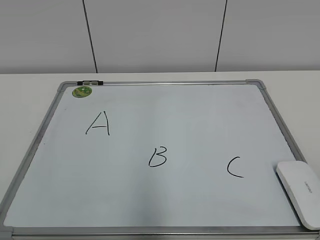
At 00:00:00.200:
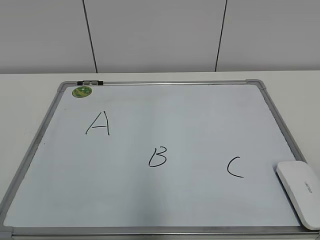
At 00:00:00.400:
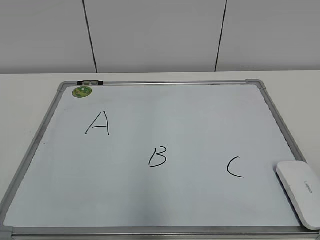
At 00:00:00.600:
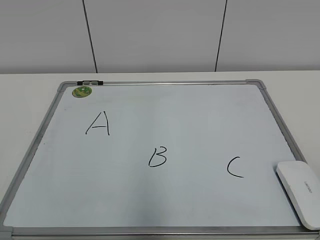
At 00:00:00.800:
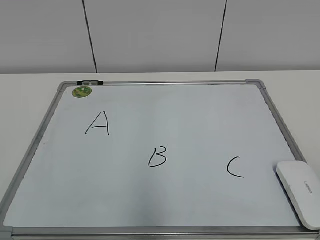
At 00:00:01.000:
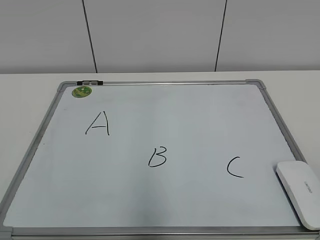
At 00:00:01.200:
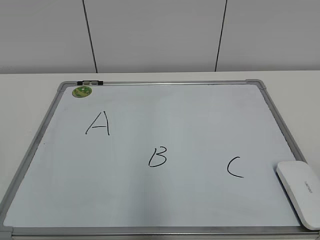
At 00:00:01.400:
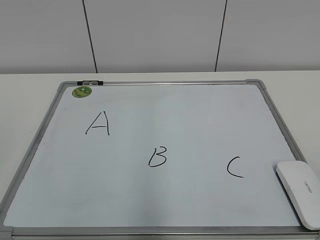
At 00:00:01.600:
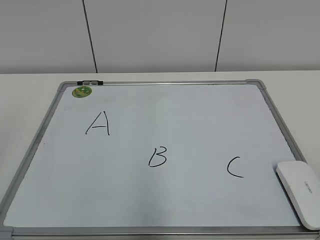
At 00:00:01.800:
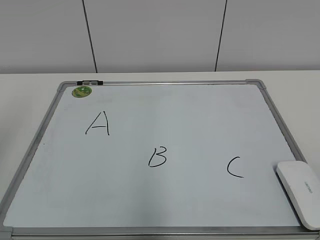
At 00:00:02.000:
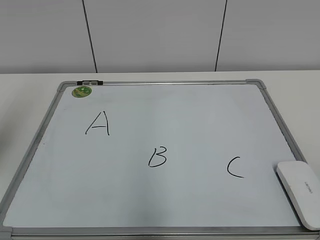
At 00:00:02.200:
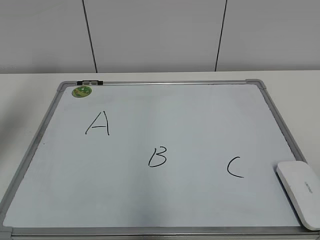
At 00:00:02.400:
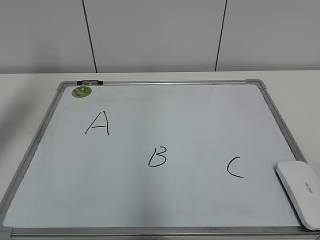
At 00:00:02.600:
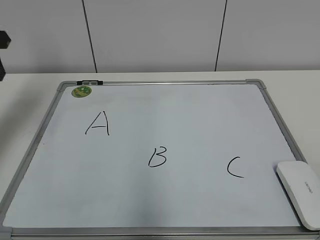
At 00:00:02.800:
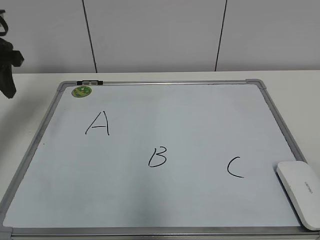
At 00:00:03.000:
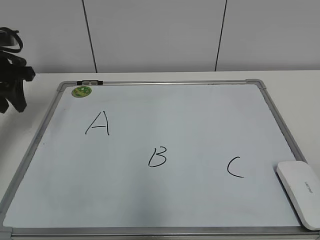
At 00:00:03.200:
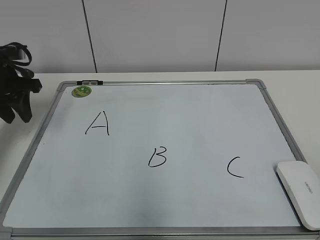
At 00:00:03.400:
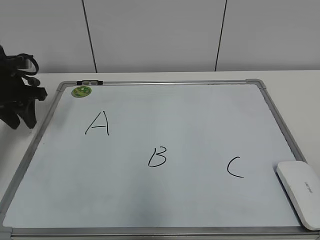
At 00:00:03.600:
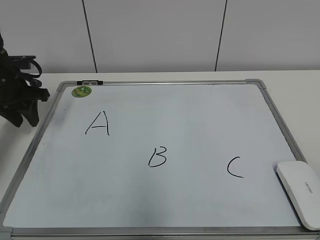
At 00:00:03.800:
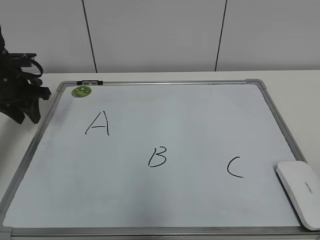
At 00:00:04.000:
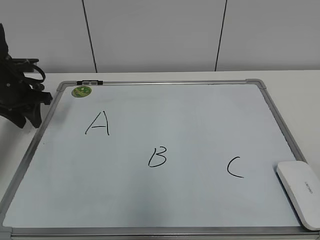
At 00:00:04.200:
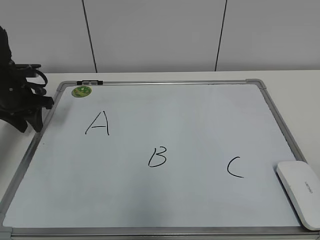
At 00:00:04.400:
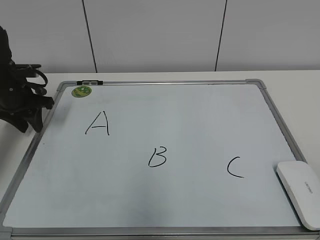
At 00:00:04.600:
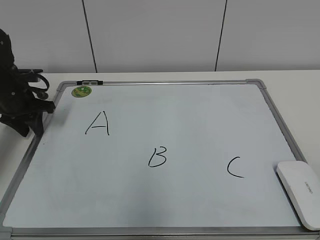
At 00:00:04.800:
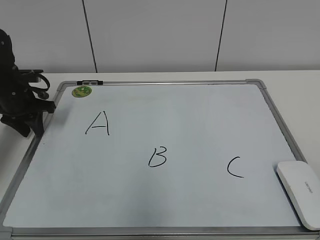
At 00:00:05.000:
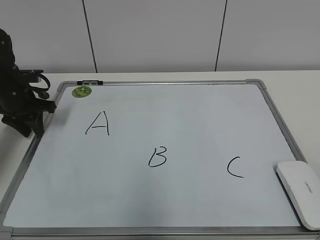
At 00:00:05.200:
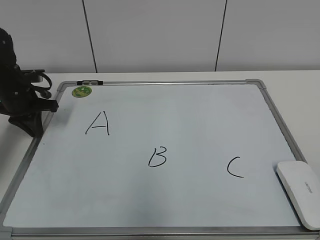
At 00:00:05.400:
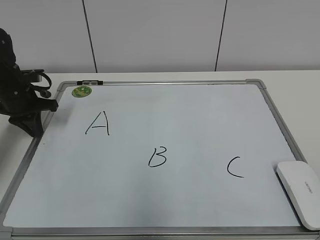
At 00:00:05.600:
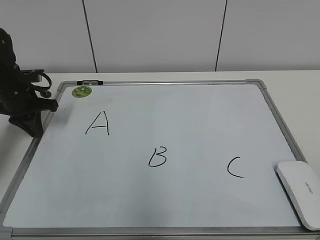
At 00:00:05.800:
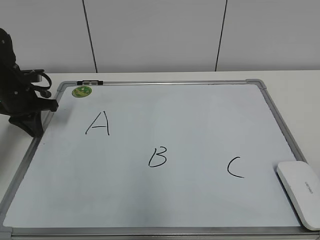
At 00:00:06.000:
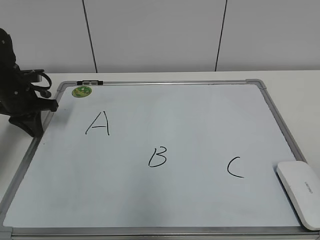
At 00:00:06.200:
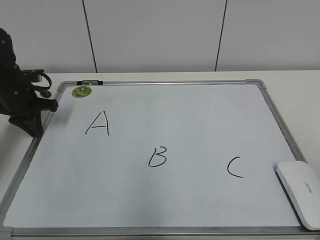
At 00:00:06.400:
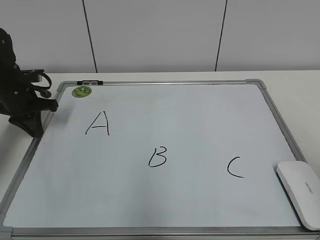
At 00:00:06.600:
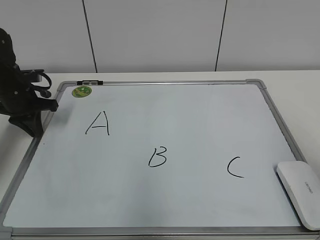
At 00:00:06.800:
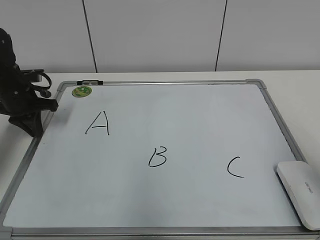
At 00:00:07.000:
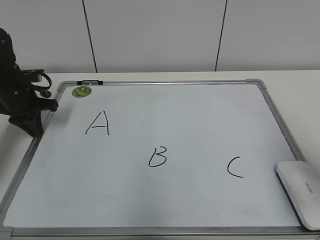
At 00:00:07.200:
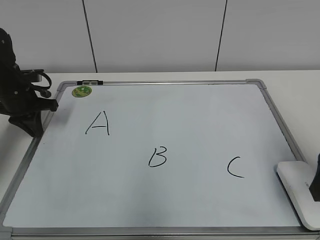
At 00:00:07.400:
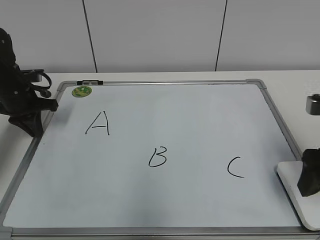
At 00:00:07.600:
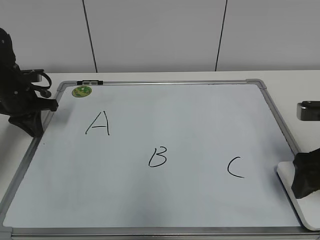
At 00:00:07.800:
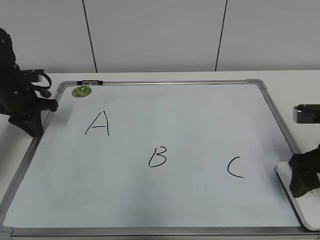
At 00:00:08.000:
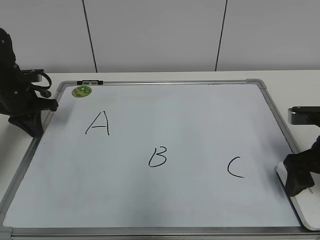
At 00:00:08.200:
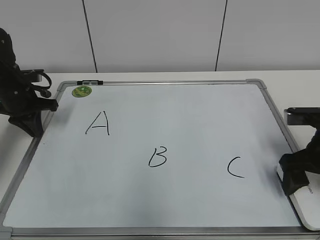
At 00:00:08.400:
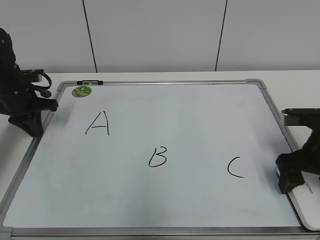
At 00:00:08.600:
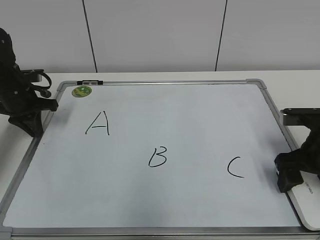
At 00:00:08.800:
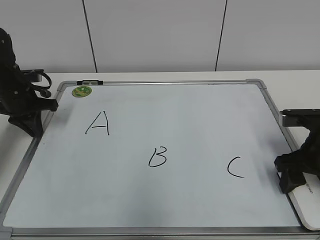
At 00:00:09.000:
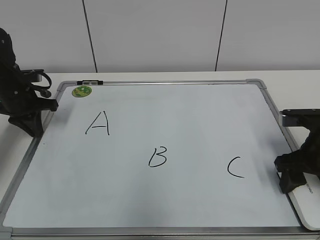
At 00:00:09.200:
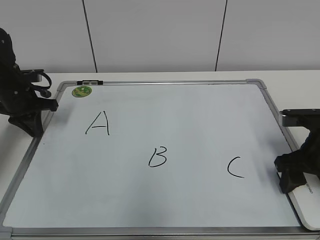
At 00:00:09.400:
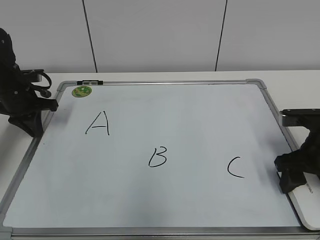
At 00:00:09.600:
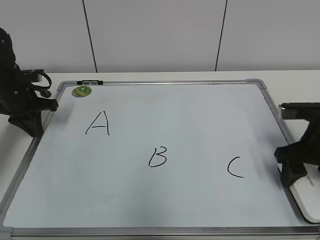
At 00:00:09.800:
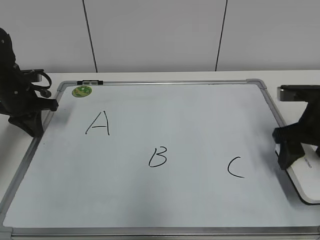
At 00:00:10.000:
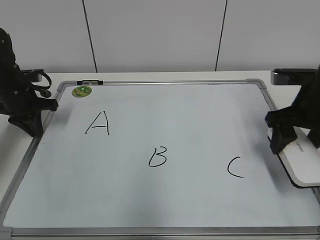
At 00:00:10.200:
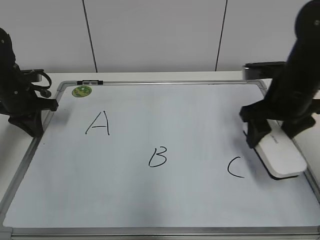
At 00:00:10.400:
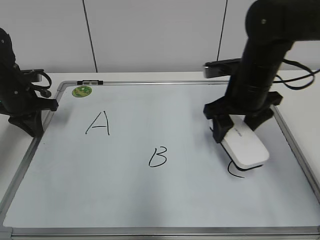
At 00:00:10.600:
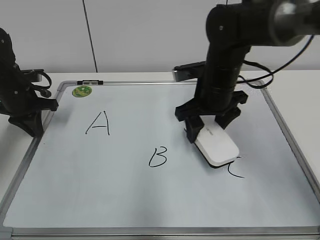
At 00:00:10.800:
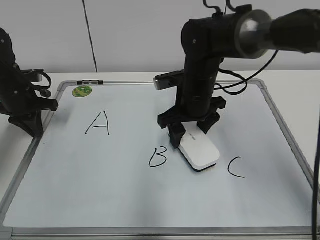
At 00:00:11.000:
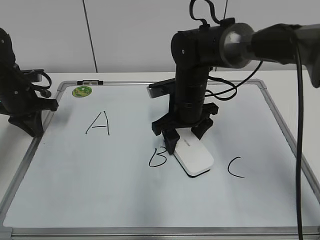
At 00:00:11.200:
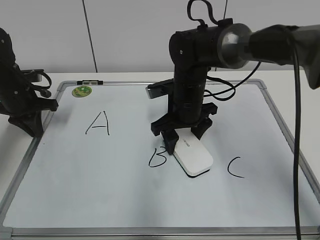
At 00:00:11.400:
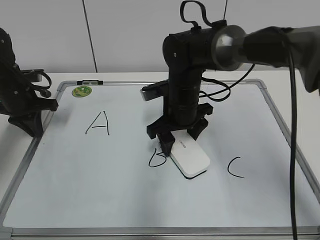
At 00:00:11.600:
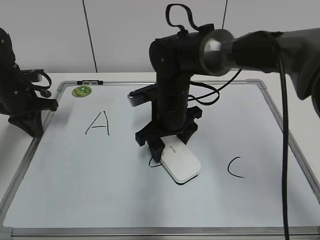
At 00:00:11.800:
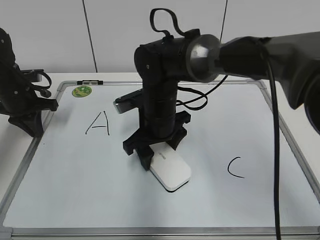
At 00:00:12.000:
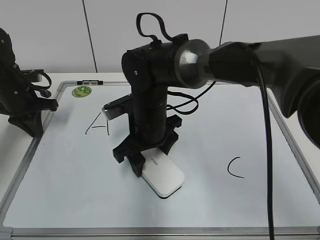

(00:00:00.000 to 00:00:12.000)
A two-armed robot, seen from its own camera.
Task of the whole recording: pick up the eraser on the blackboard and erase the letter "B".
Step, 00:00:00.000 - 00:00:05.000: Hold the drawing board steady with your left hand.
Step, 00:00:05.400 - 00:00:09.400: Grab the eraser with your right hand.
00:00:01.600 - 00:00:03.000: The left gripper is displaced forward by roughly 30 cm.
00:00:03.000 - 00:00:04.400: The left gripper moves downward, about 10 cm.
00:00:04.400 - 00:00:06.000: The left gripper closes up.
00:00:06.000 - 00:00:07.600: The right gripper moves forward, roughly 25 cm, and opens.
00:00:07.600 - 00:00:09.000: The right gripper is displaced downward by roughly 5 cm, and closes up.
00:00:09.000 - 00:00:10.400: The right gripper goes roughly 15 cm to the left, forward and upward.
00:00:10.400 - 00:00:12.000: The right gripper travels to the left by approximately 15 cm.

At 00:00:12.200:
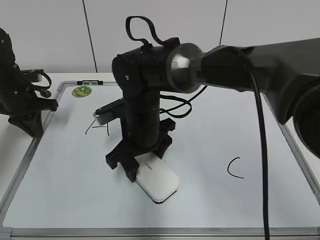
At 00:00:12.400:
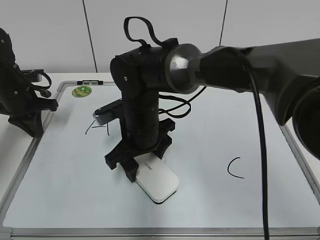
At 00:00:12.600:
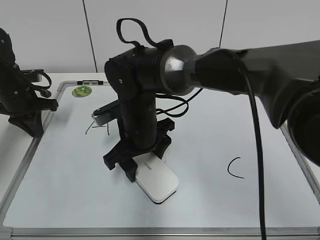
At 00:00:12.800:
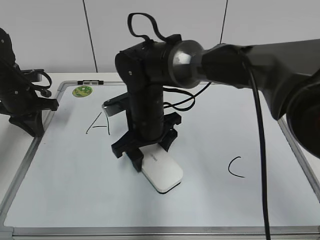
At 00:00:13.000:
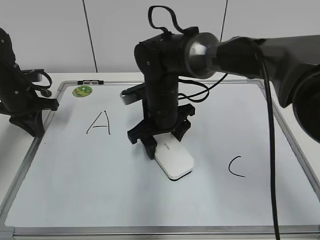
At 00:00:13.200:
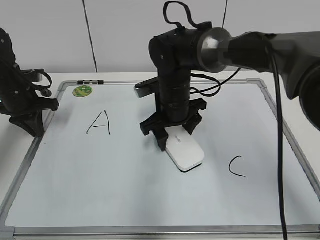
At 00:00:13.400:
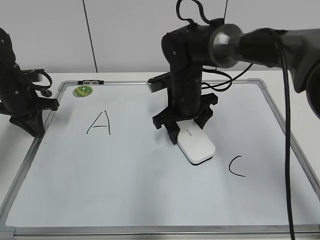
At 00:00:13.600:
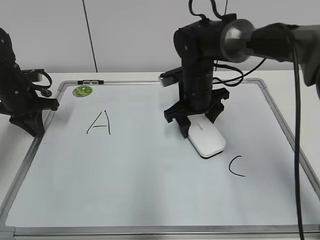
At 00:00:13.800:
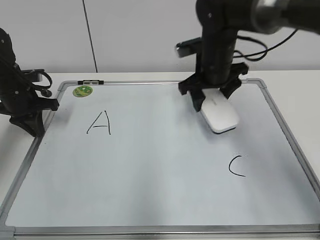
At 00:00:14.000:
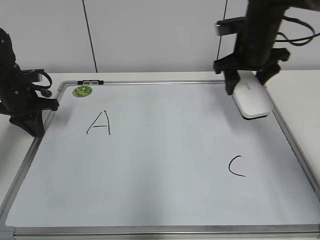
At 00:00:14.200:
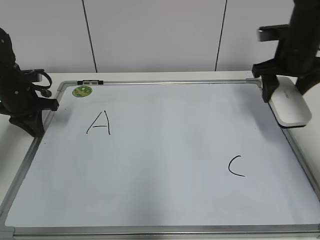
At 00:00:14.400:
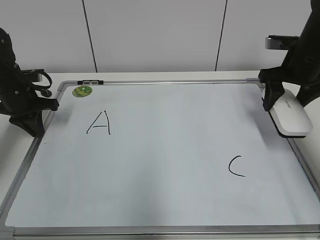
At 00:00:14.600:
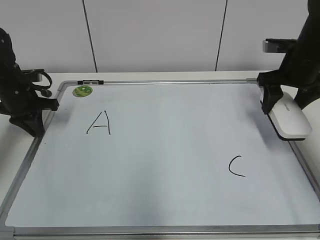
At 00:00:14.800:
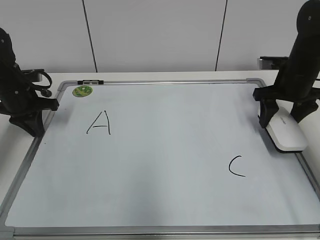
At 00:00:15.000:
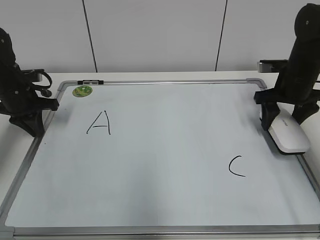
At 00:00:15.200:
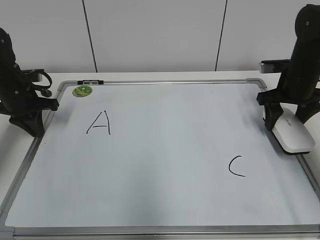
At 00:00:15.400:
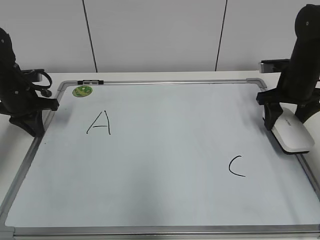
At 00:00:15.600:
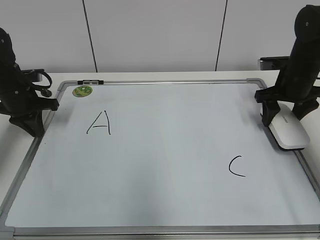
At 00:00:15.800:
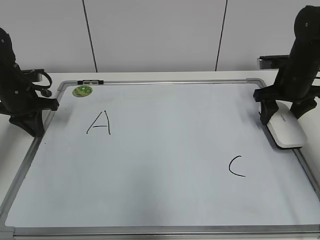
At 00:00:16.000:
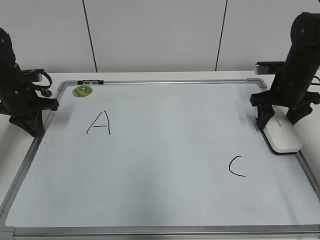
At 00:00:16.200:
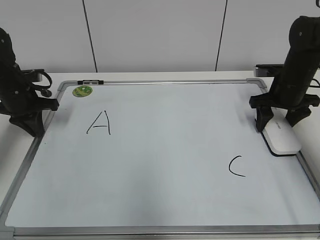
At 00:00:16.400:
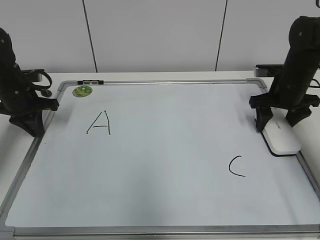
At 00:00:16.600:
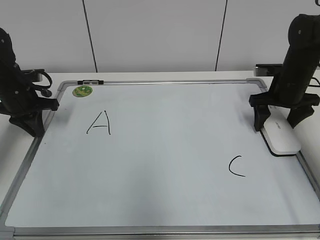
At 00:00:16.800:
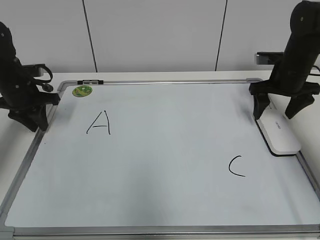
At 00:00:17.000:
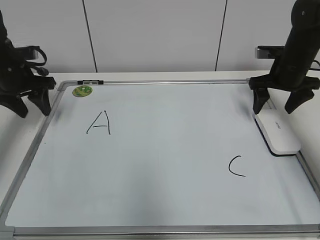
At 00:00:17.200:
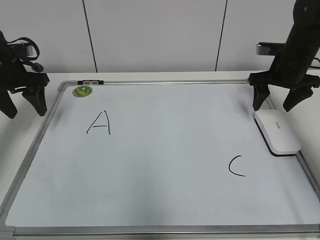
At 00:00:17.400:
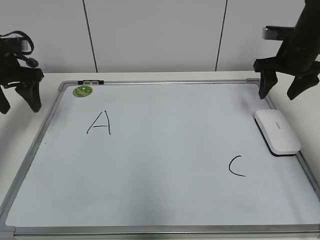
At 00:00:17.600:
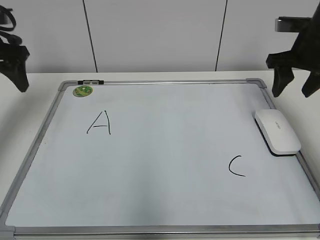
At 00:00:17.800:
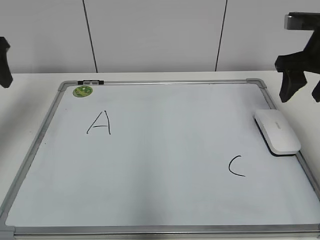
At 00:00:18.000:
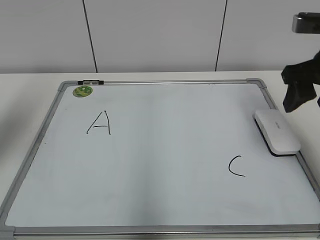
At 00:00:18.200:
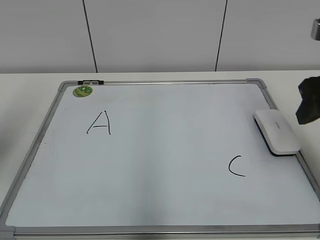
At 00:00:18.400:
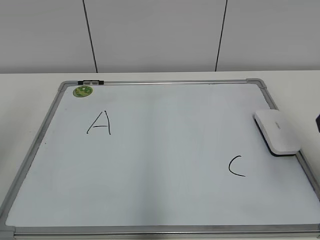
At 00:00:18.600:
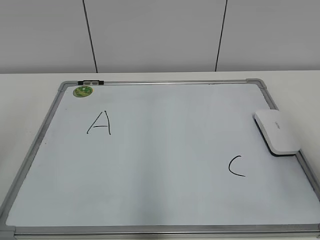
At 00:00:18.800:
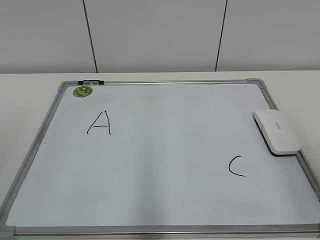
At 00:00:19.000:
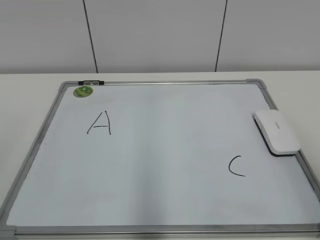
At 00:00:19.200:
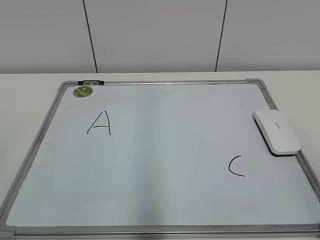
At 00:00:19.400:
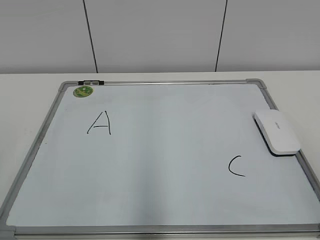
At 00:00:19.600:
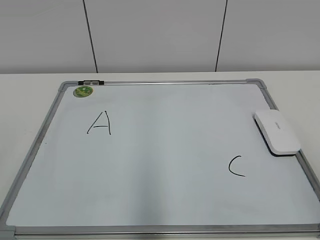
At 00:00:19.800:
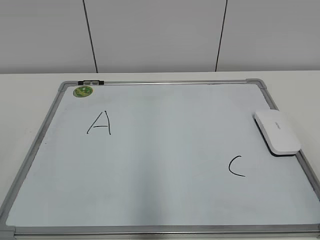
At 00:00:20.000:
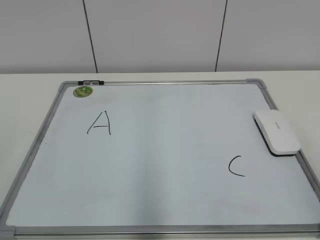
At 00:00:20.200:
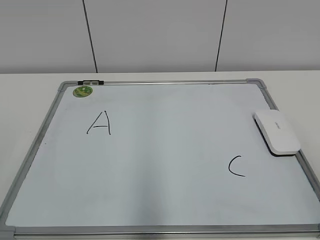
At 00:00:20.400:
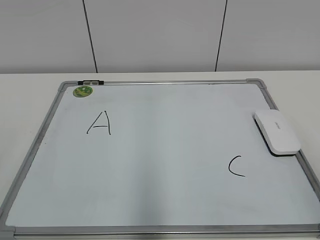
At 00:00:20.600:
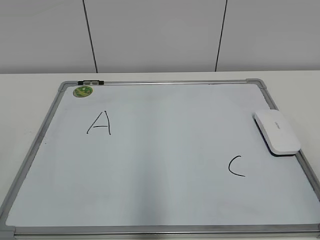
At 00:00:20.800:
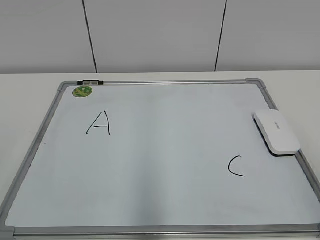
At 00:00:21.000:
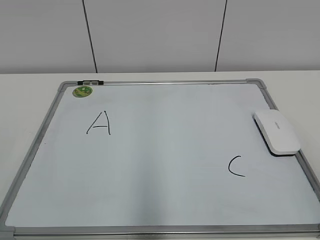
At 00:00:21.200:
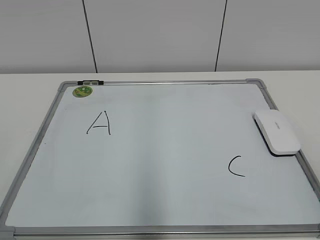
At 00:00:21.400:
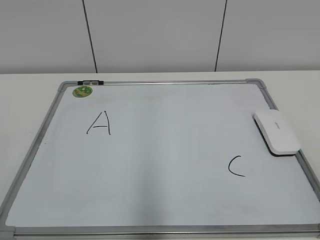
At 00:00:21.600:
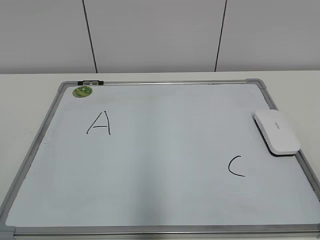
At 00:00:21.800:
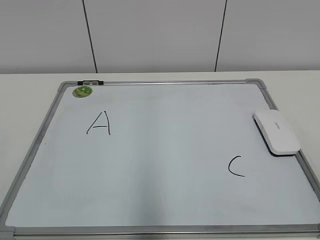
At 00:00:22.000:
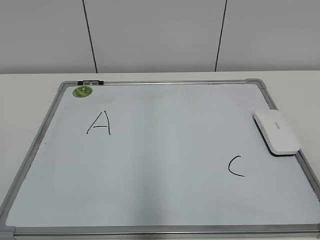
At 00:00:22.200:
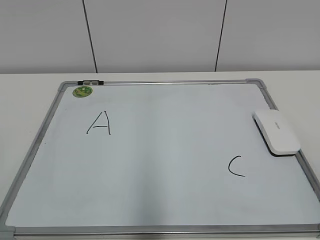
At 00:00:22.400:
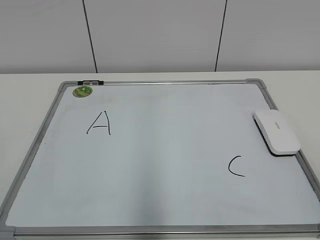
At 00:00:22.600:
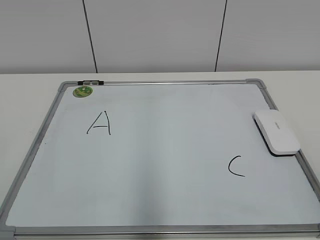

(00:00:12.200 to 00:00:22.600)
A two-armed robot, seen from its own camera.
Task of the whole recording: pick up the eraser on the blackboard and erase the letter "B".
Step, 00:00:13.800 - 00:00:16.400: Put down the eraser with your right hand.
00:00:12.200 - 00:00:13.600: The right gripper heads to the right and forward, covering some 15 cm.
00:00:13.600 - 00:00:15.200: The right gripper travels to the right by some 20 cm.
00:00:15.200 - 00:00:16.600: The right gripper opens.
00:00:16.600 - 00:00:18.200: Both grippers travel together backward and upward, some 25 cm. The right gripper closes, while the left gripper opens.
00:00:18.200 - 00:00:19.600: Both grippers move backward, about 20 cm.
